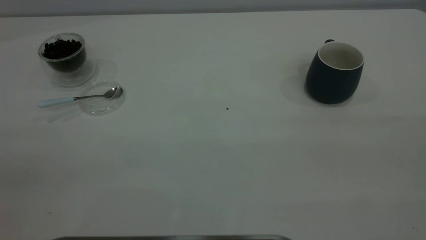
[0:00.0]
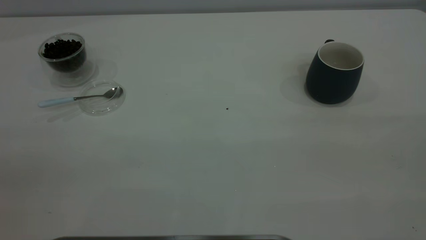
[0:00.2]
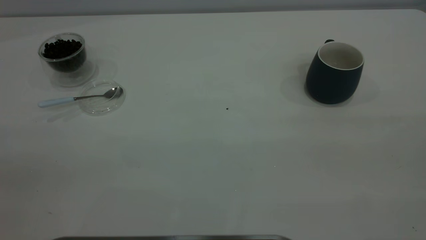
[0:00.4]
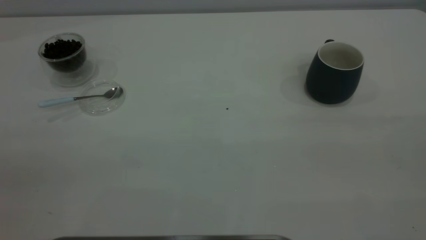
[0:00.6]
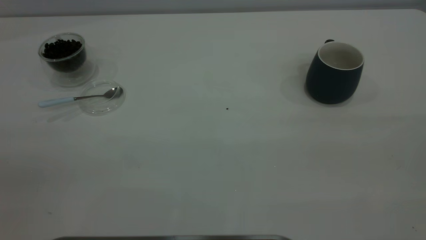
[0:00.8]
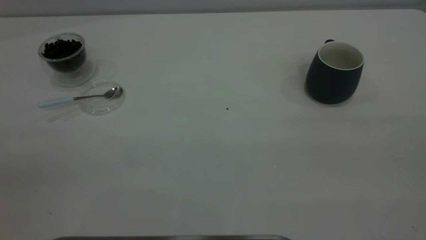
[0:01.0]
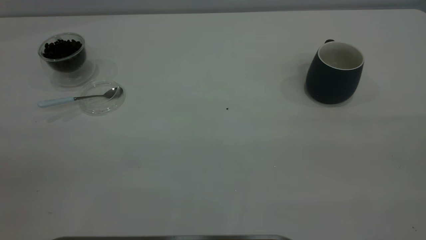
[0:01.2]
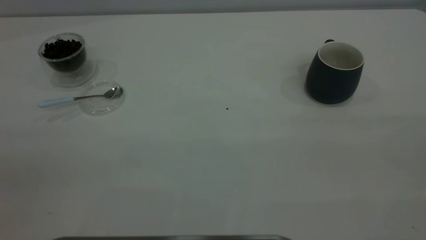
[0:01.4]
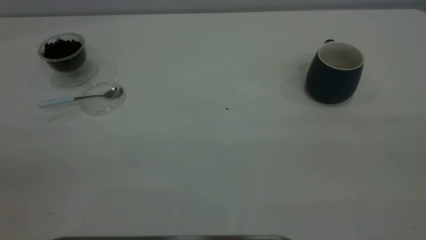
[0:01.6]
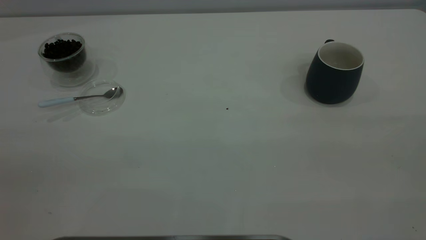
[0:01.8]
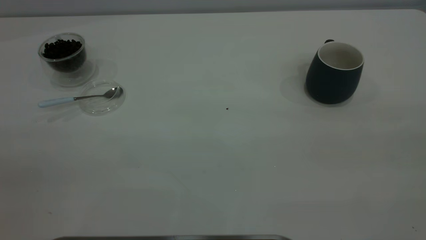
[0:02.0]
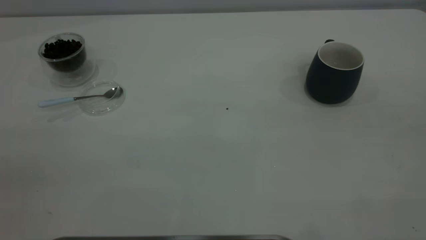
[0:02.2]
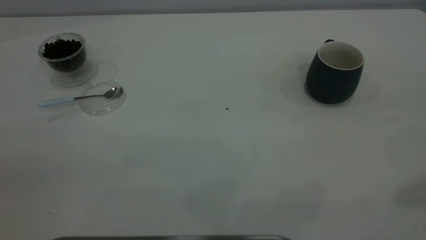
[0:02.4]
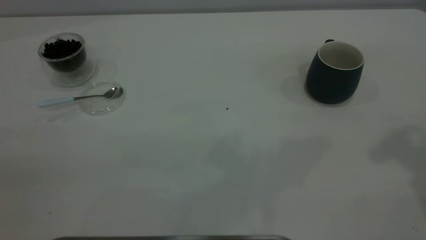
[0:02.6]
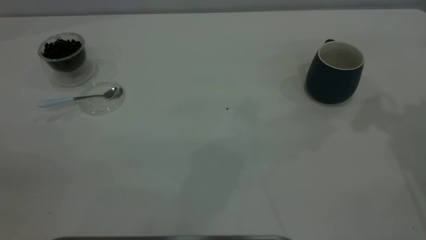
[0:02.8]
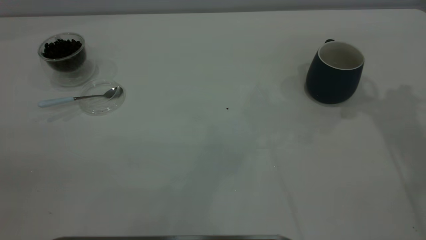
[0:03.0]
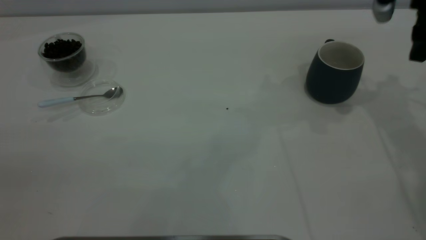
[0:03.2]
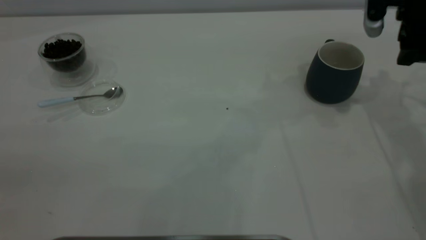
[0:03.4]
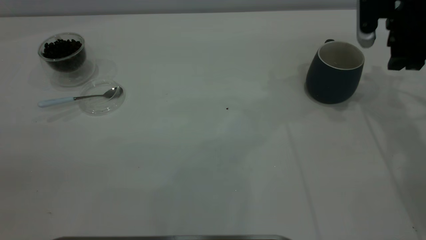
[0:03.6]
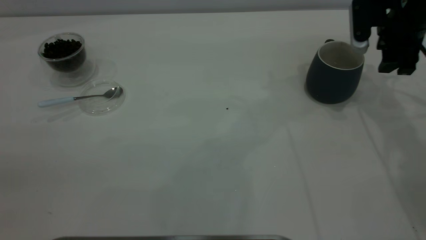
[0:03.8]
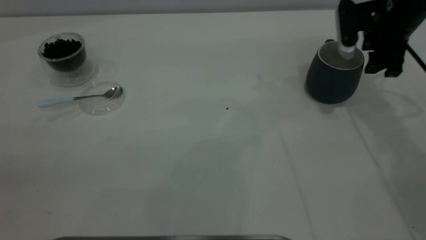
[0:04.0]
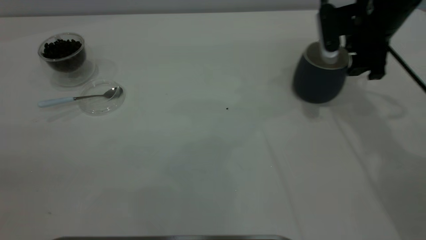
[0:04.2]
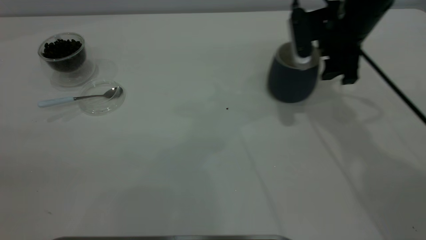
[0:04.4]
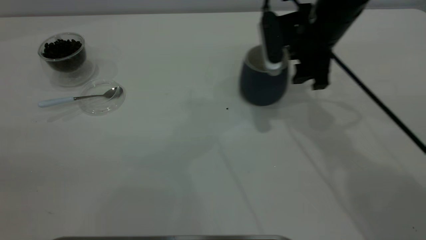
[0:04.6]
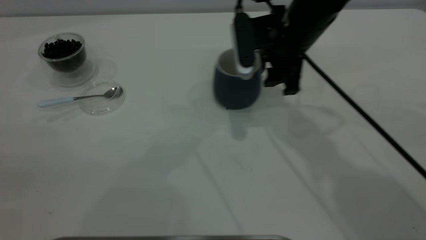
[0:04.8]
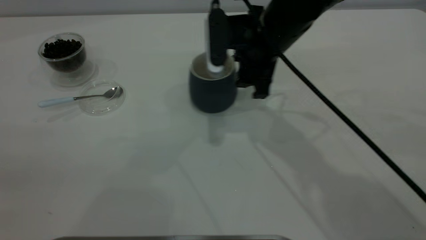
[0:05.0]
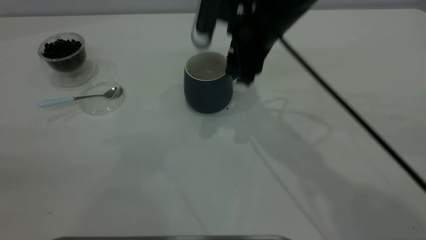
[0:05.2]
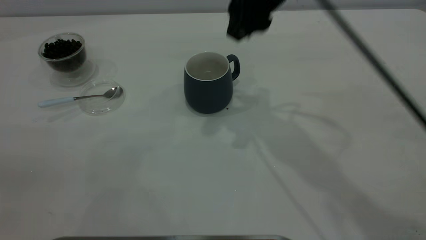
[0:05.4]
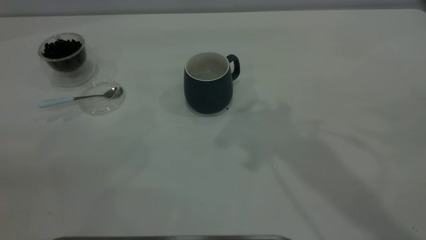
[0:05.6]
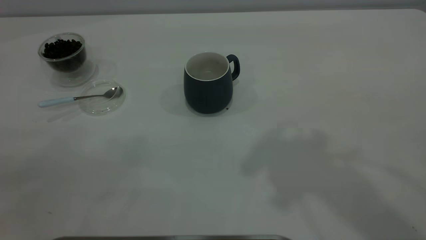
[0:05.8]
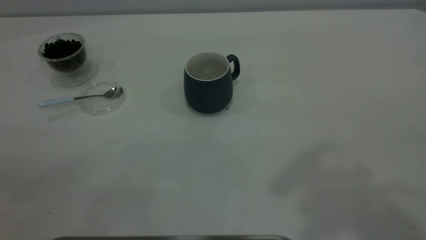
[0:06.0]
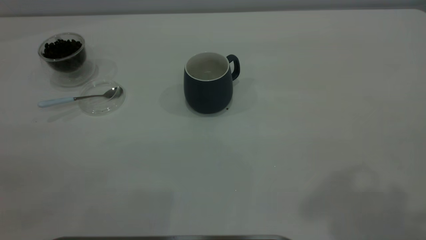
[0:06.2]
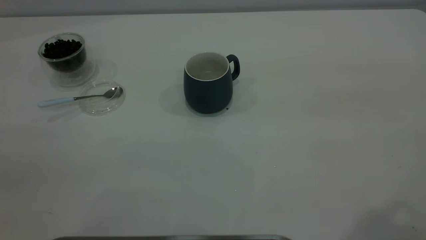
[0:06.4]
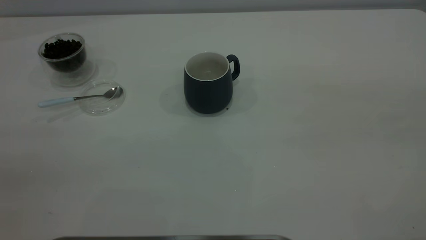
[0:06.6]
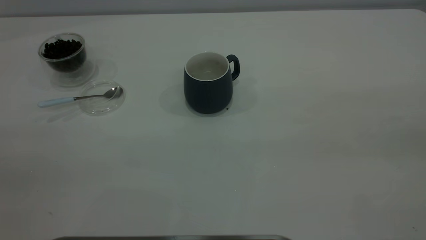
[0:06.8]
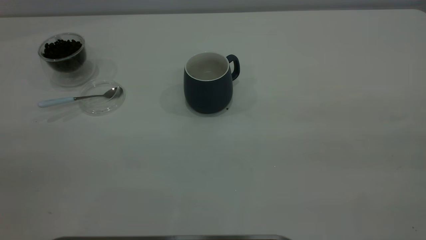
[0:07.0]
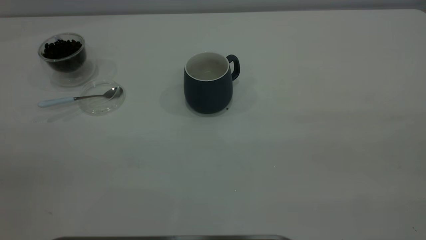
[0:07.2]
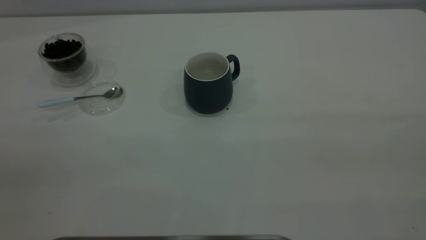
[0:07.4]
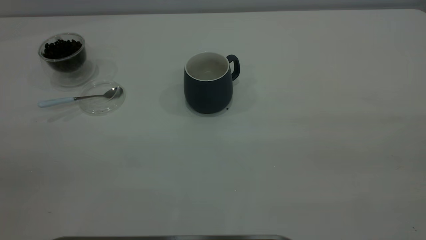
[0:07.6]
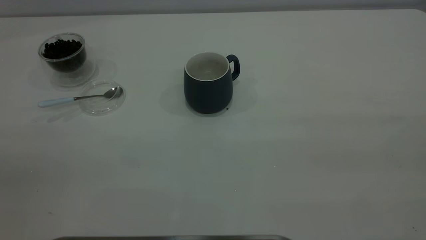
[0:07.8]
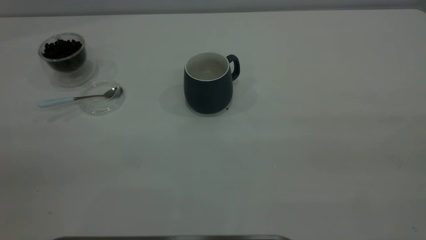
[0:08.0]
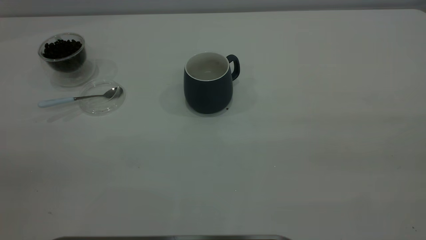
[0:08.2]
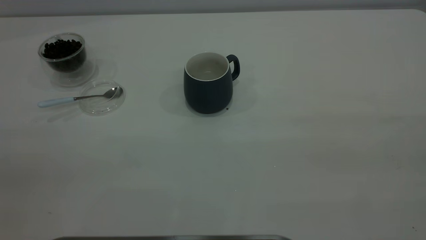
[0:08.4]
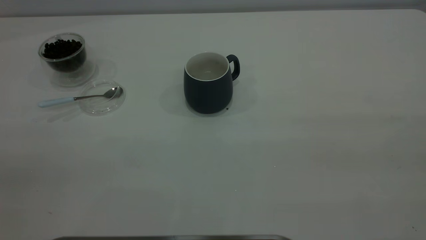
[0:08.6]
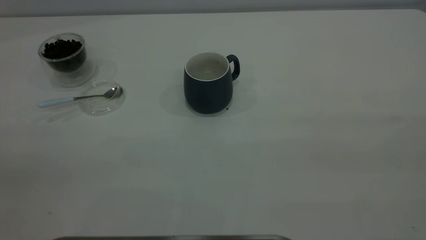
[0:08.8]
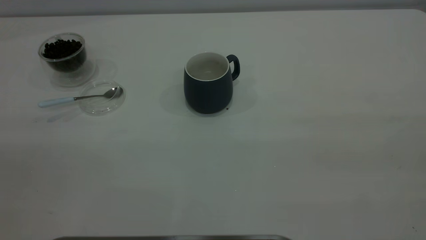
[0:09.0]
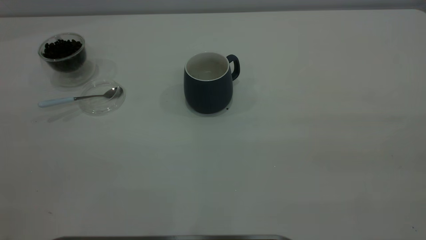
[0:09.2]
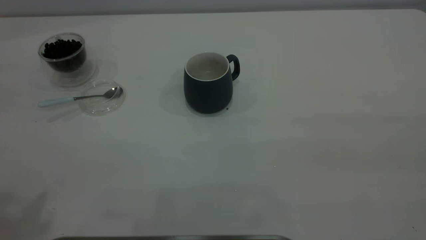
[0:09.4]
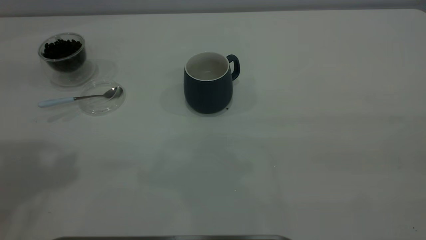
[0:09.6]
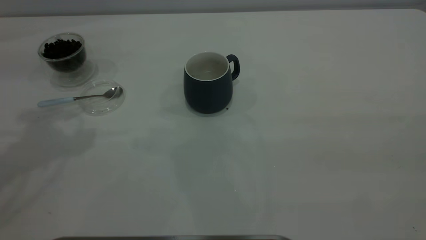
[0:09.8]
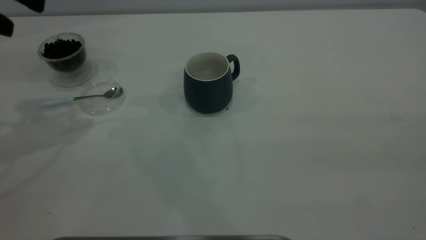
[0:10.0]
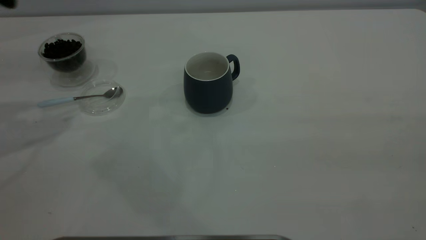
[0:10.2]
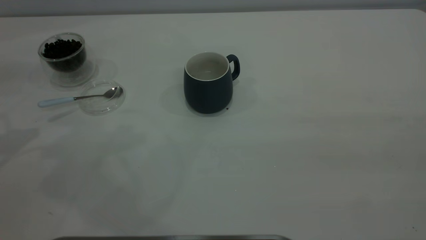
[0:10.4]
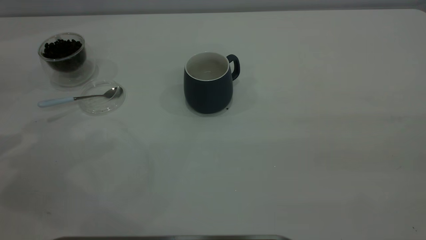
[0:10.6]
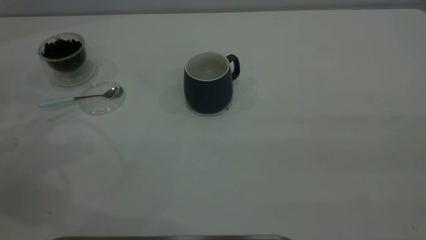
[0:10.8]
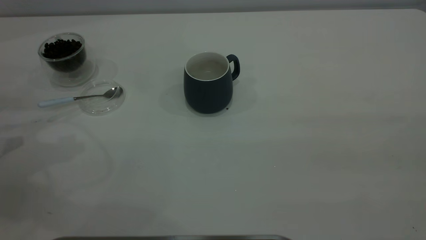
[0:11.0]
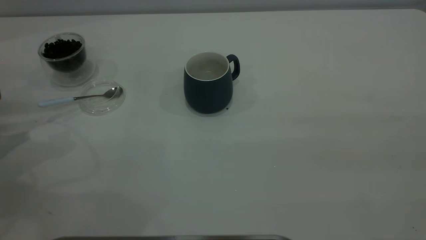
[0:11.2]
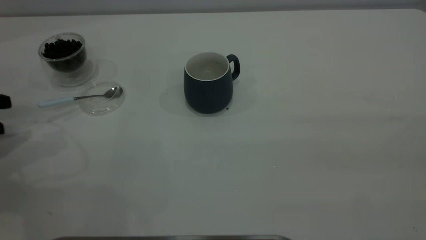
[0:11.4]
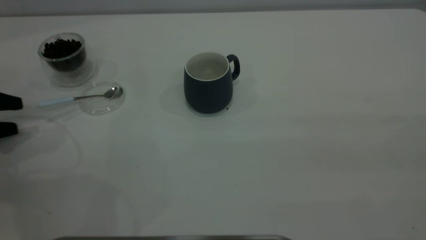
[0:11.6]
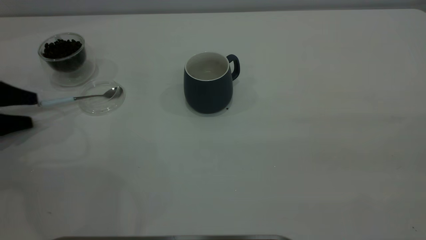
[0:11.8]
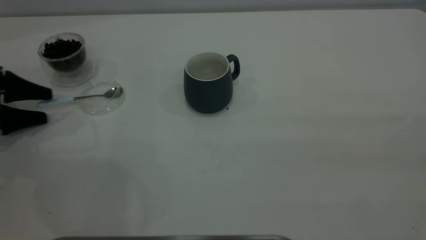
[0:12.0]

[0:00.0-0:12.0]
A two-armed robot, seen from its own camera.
Task of the whole recording: the right gripper place the grey cup in the center of the table, the left gripper take the blue spoon from the cup lid and scoop out the coffee beans from the coffee cup and put them into the grey cup, the left gripper put the spoon back into the cup lid.
Step, 0:00.0 to 0:05.4: Move the cup to the center of view.
0:00.0 to 0:01.6: Neither gripper changes place.
0:03.0 to 0:04.4: The right gripper travels to the left and downward by about 15 cm.
0:04.4 to 0:06.0: The right gripper goes roughly 40 cm upward and backward.
0:10.4 to 0:12.0: The left gripper goes about 20 cm downward.

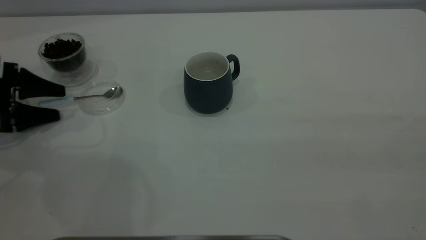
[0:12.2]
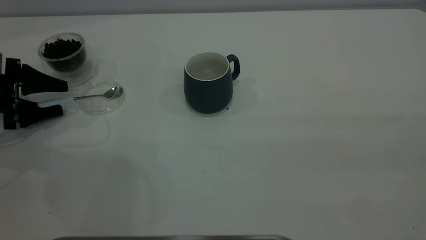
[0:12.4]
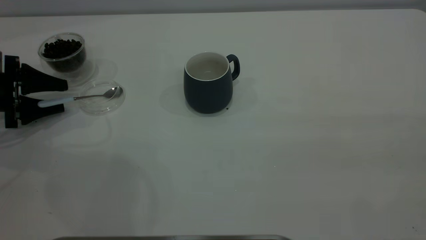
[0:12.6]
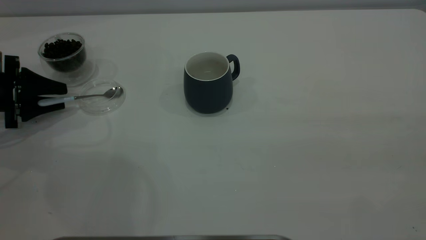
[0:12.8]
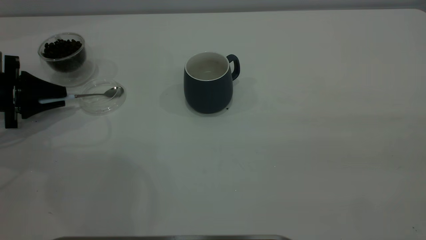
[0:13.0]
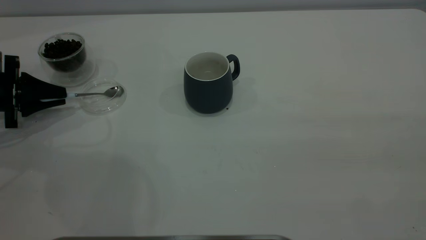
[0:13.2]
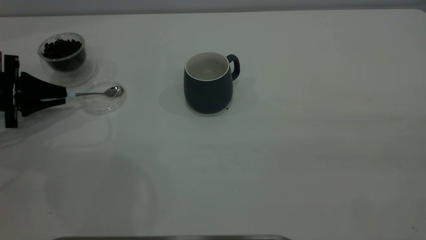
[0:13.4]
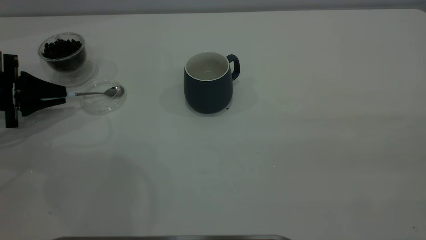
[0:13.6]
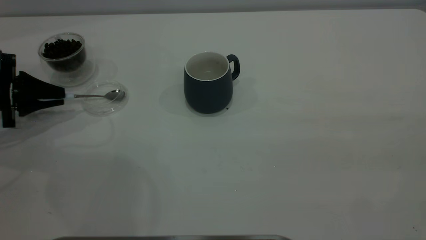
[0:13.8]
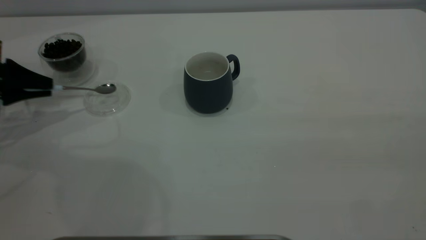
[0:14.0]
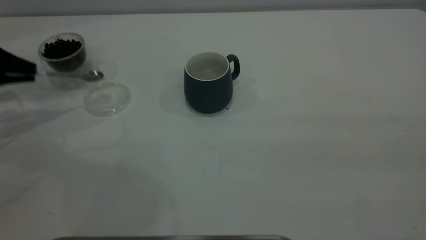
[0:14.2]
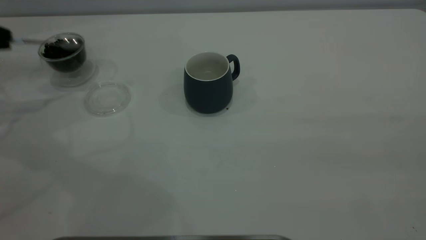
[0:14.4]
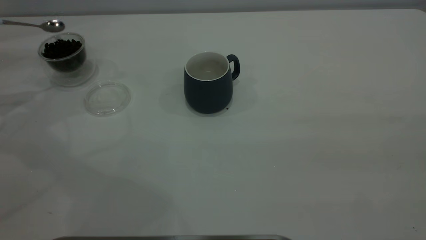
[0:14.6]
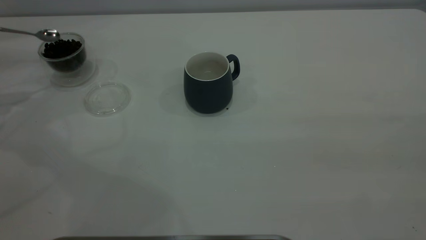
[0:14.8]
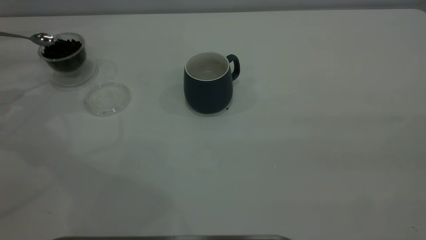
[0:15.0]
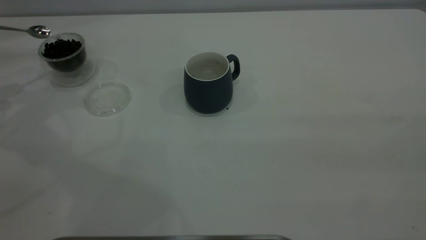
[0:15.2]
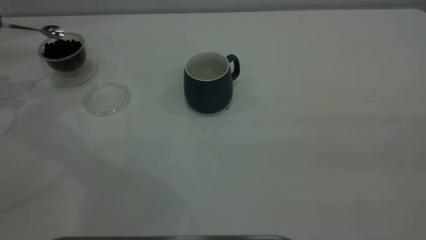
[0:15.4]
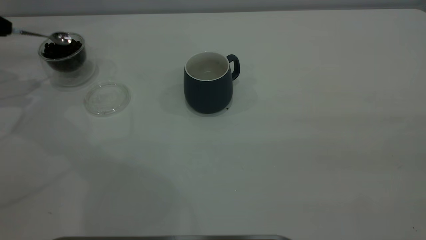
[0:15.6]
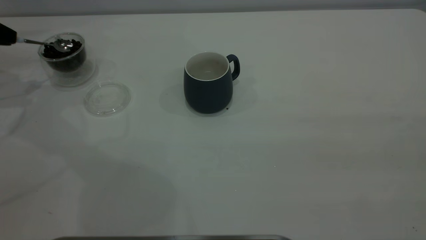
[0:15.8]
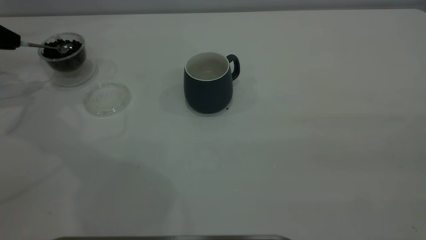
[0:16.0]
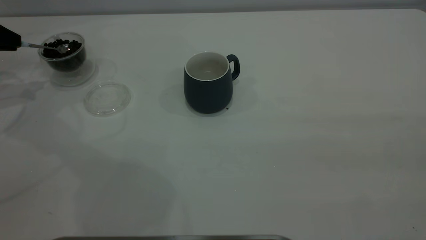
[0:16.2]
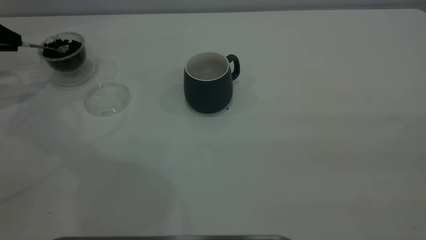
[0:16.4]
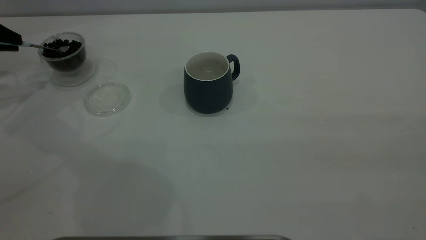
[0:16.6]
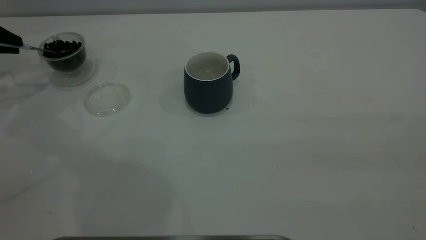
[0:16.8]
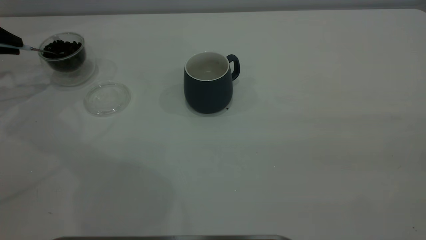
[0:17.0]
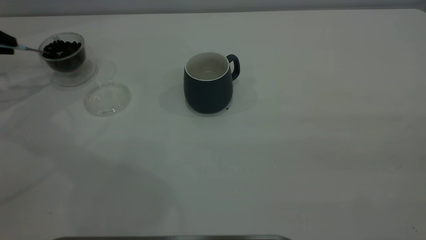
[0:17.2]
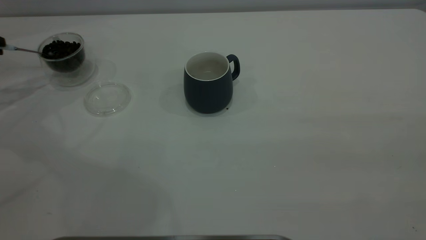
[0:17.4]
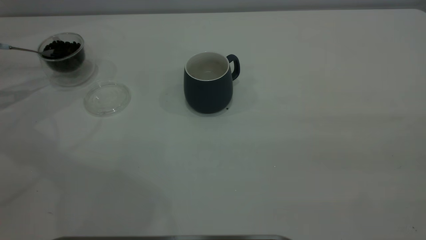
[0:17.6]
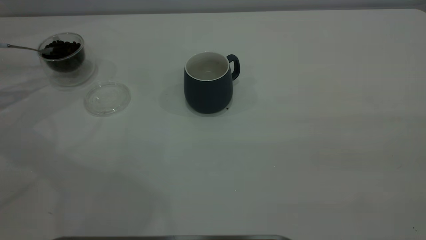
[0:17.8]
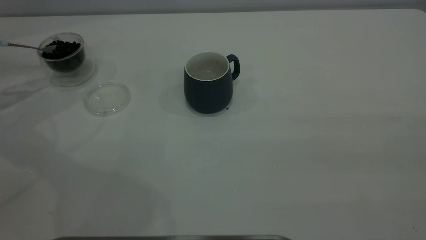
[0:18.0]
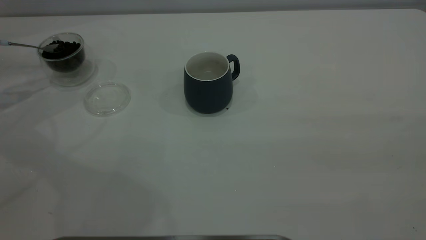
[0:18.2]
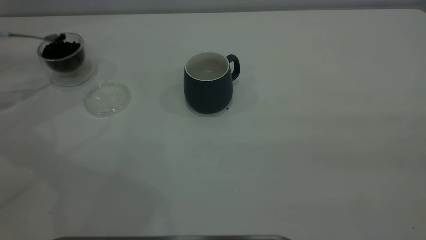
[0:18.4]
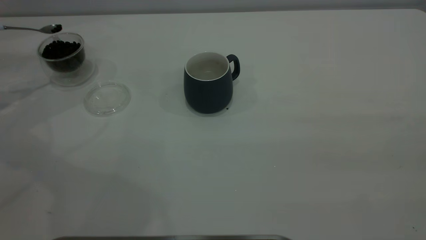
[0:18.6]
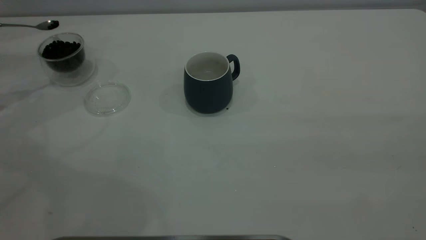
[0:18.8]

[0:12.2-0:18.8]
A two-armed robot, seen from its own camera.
Task of the whole recording: the right gripper place the grey cup in the center of the table, the left gripper take the blue spoon from the cup lid and scoop out the coffee beans from the coffee cup and put them into the grey cup, the left gripper put the spoon back into the cup lid.
Step, 0:12.2 to 0:14.2: Pick up the spoon.
0:12.2 to 0:13.8: The left gripper closes its fingers.
0:13.8 to 0:15.4: The left gripper travels upward, forward and to the left by about 15 cm.
